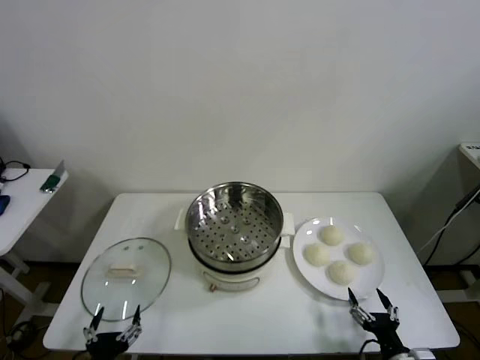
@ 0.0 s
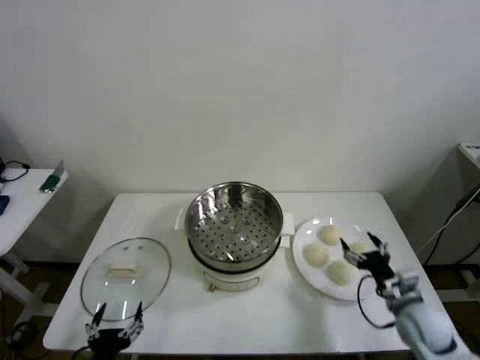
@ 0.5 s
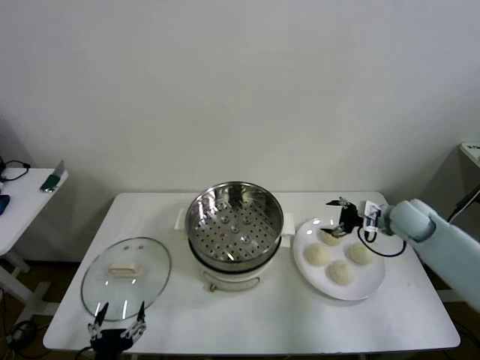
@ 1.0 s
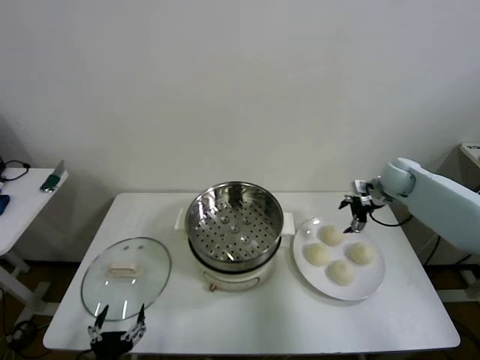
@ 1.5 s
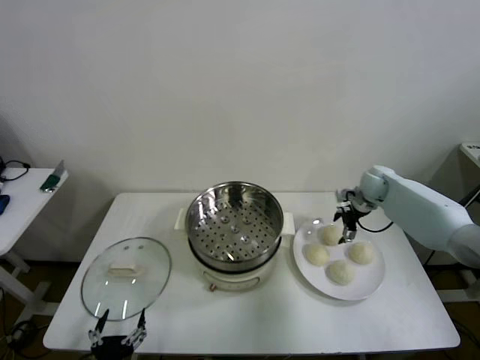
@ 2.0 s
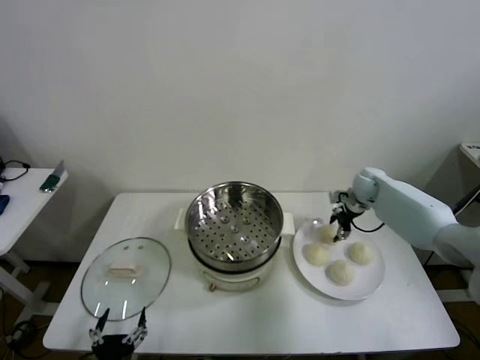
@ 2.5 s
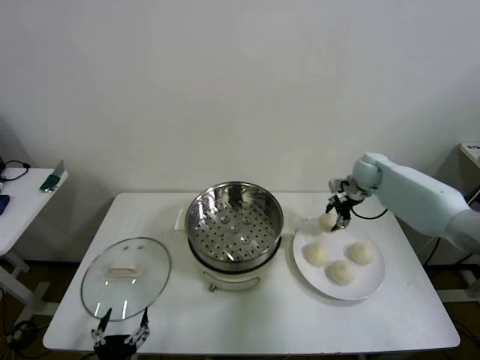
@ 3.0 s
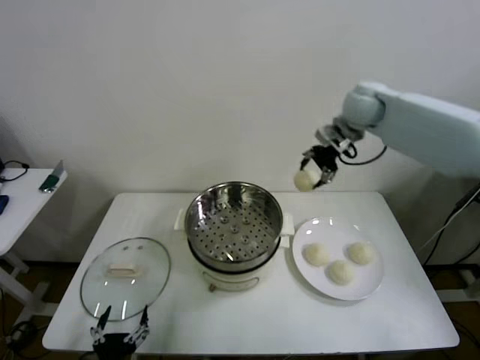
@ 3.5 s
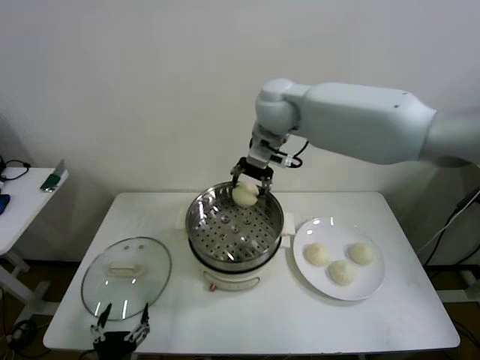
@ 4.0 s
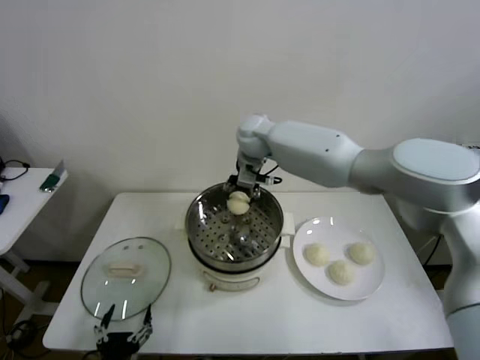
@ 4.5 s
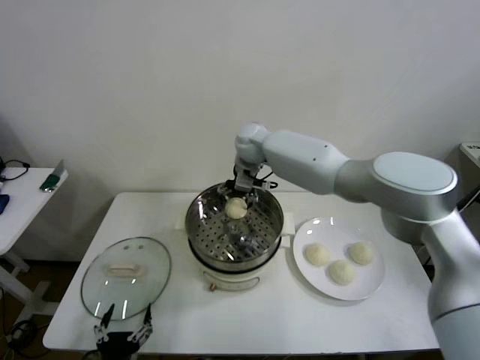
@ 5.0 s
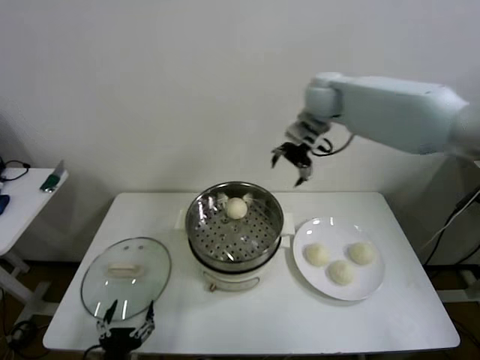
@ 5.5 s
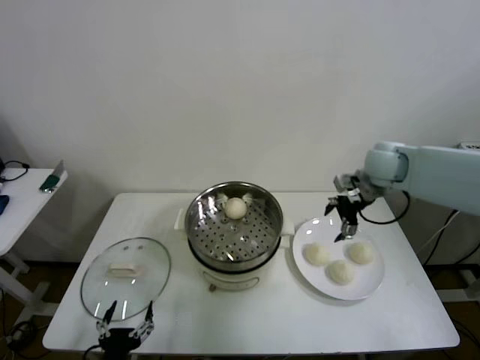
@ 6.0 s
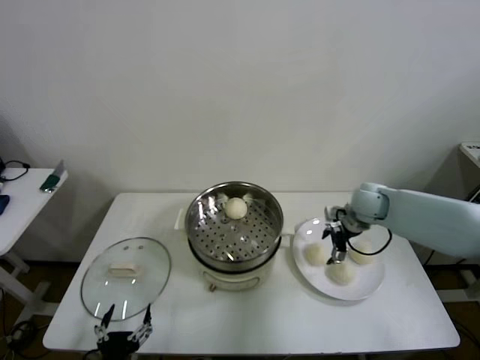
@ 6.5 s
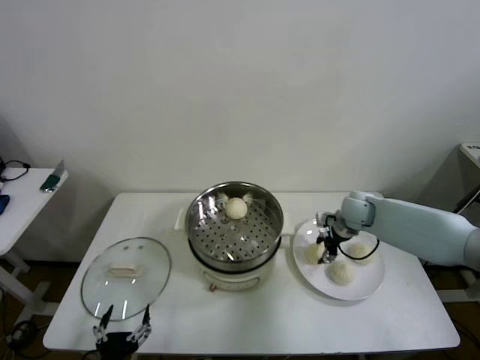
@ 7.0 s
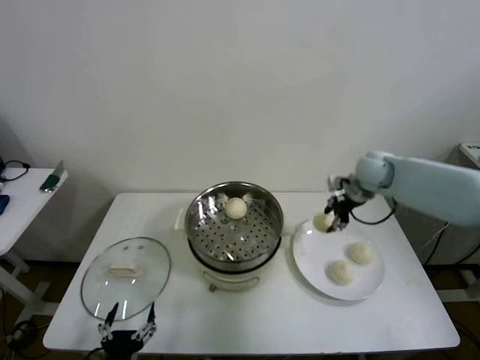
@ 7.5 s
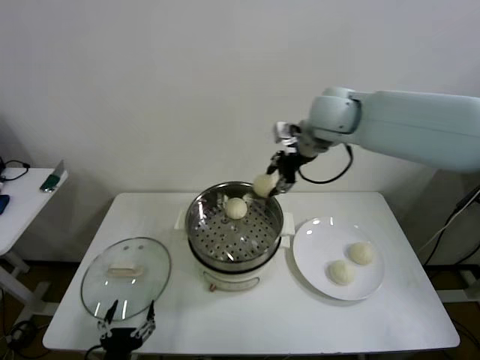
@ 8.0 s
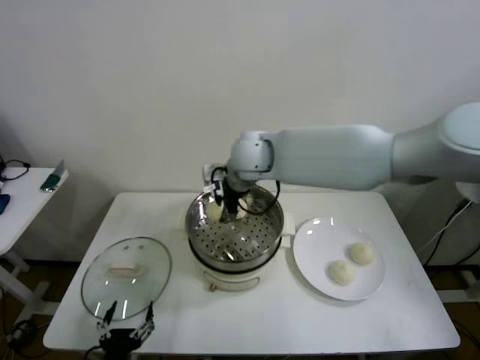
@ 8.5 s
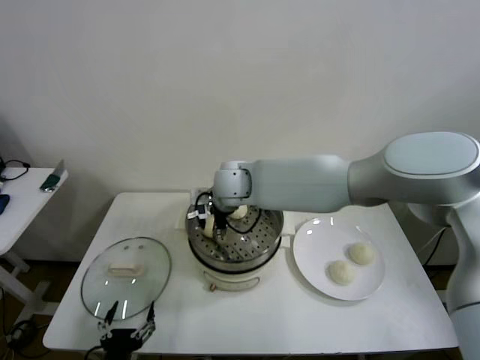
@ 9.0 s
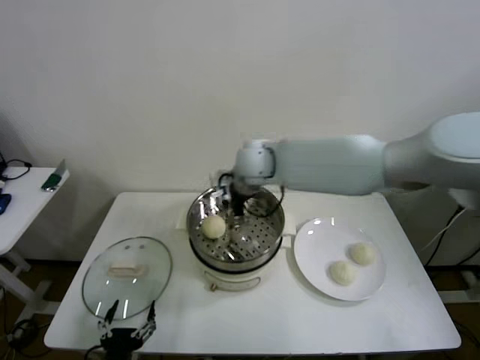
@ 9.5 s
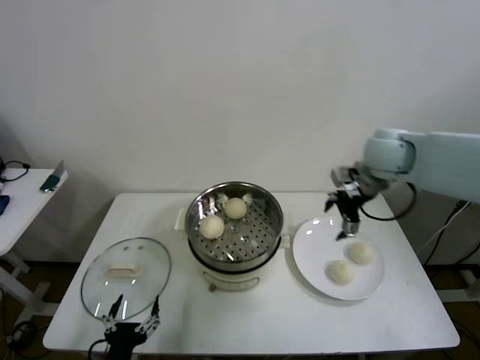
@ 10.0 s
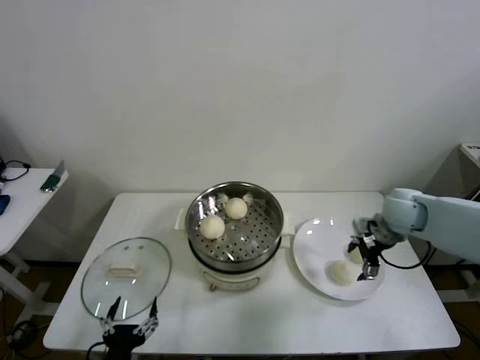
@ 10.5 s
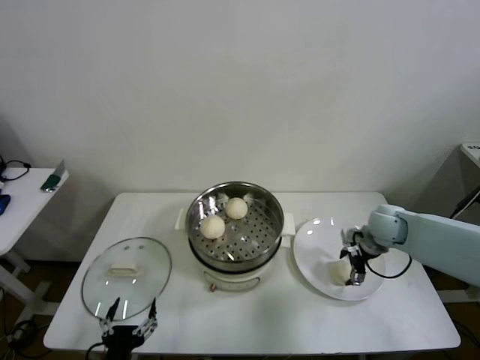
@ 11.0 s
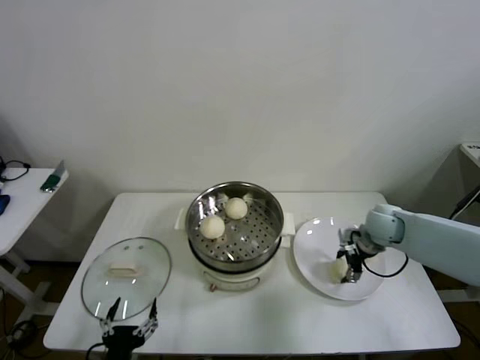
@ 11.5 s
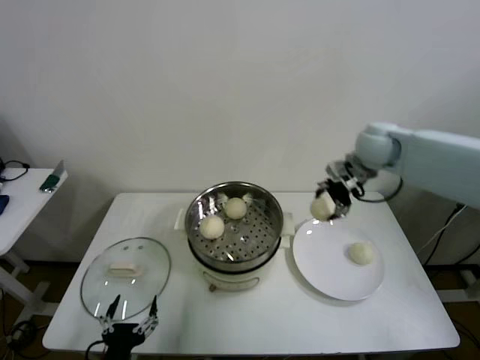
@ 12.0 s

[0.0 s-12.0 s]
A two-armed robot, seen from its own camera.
Step, 0.0 to 2.5 s: Grasp the baozi in the plate with right gripper.
Step, 3.0 to 4.5 s: Place the baozi on the steamer with right gripper.
Step, 5.0 to 6.5 s: Grasp the baozi in the plate with right gripper.
Step, 7.0 to 9.0 s: Place the baozi on the steamer with right gripper.
Step, 9.5 to 11.0 s: Grasp the baozi in the plate with right gripper.
2.0 to 4.0 s: The right gripper heads to the left and upward, covering approximately 40 cm, and closes up.
4.0 to 6.0 s: The right gripper moves to the right and downward, roughly 30 cm, and opens.
6.0 to 8.0 s: The right gripper shifts some 25 cm to the left and upward, and closes.
8.0 to 10.0 s: The right gripper is displaced to the right and downward by some 20 cm, and opens.
10.0 to 12.0 s: The right gripper moves some 20 cm downward and comes back, and closes up.

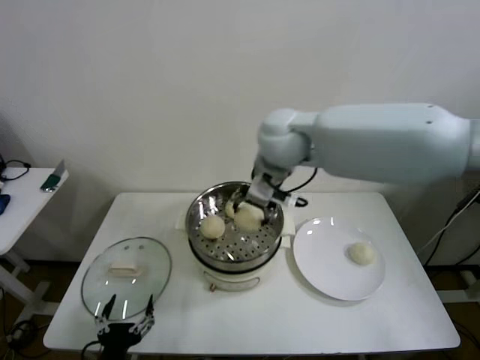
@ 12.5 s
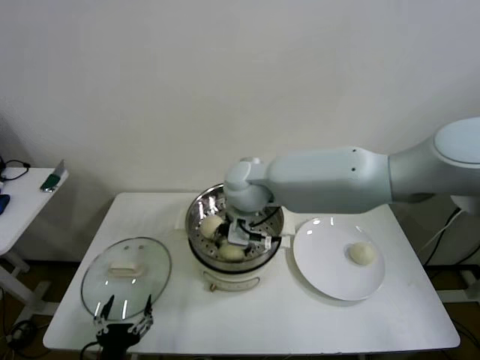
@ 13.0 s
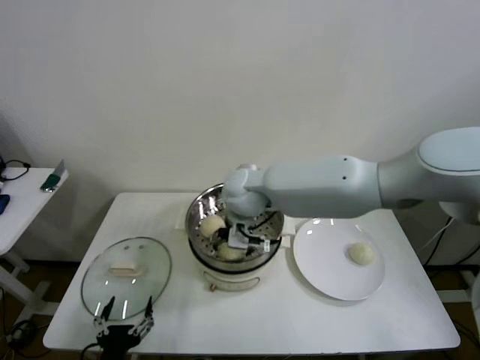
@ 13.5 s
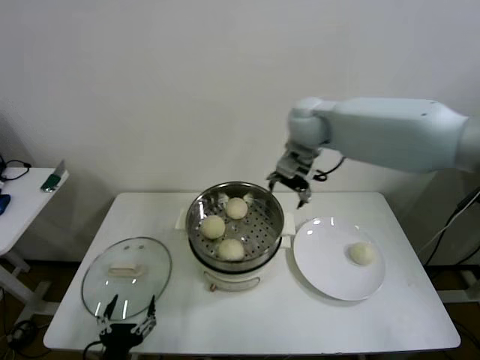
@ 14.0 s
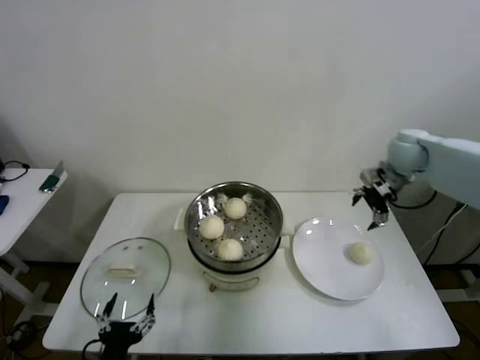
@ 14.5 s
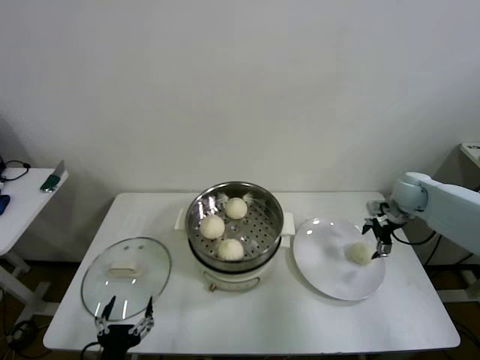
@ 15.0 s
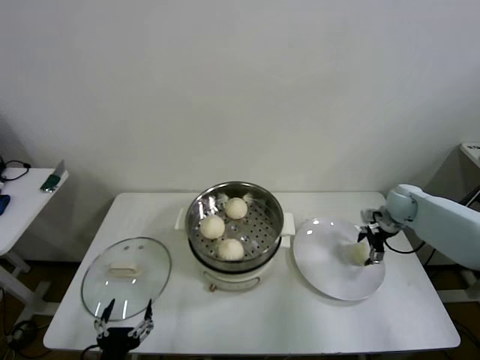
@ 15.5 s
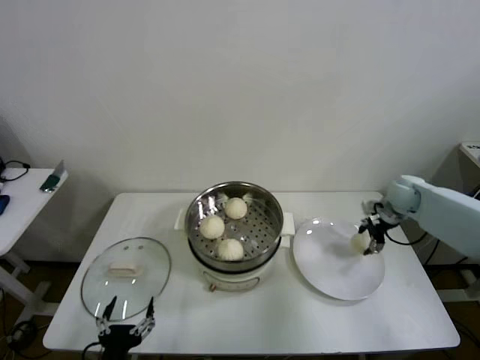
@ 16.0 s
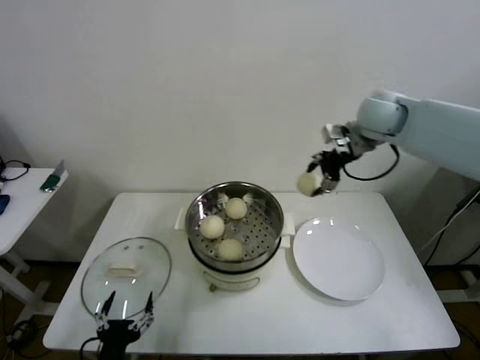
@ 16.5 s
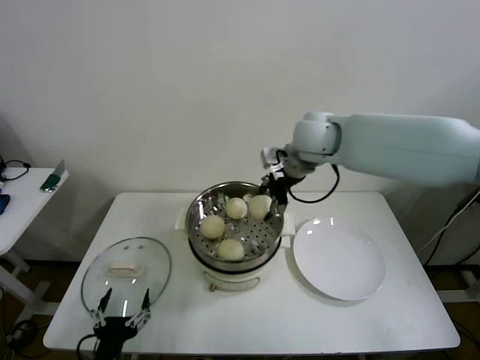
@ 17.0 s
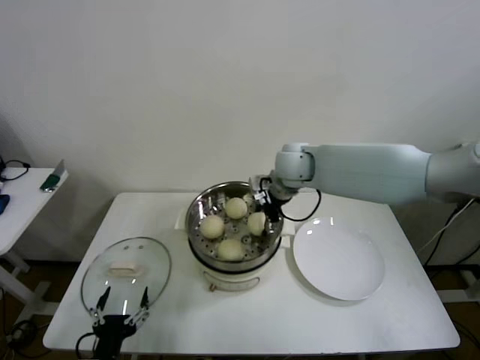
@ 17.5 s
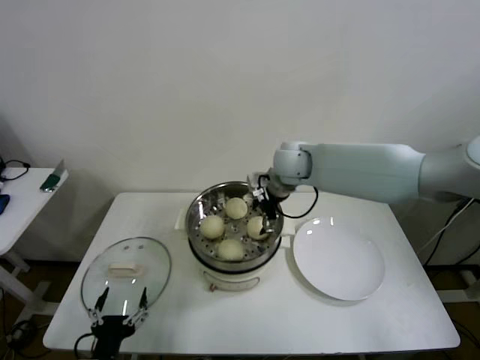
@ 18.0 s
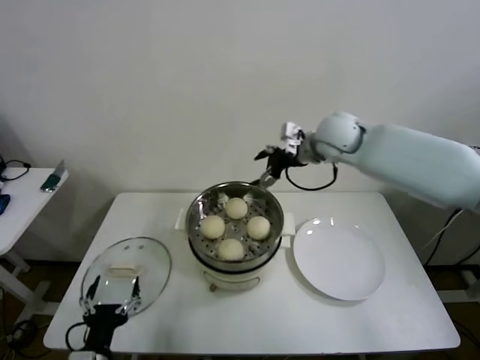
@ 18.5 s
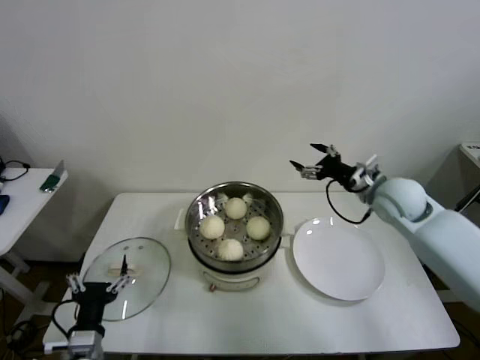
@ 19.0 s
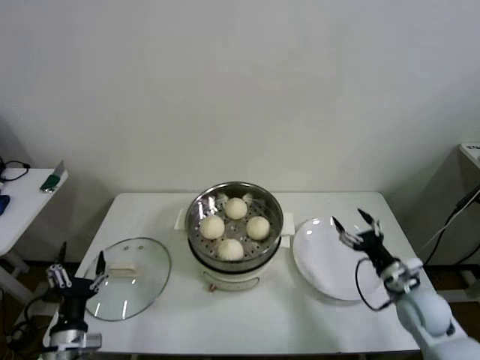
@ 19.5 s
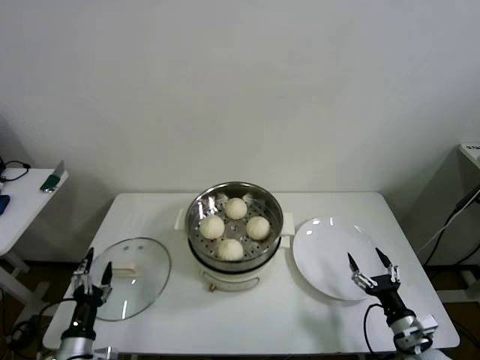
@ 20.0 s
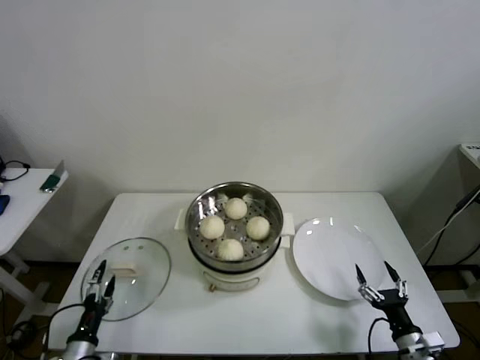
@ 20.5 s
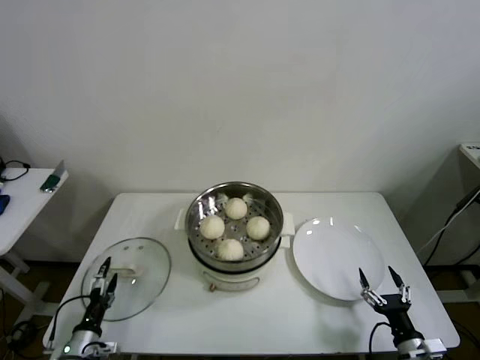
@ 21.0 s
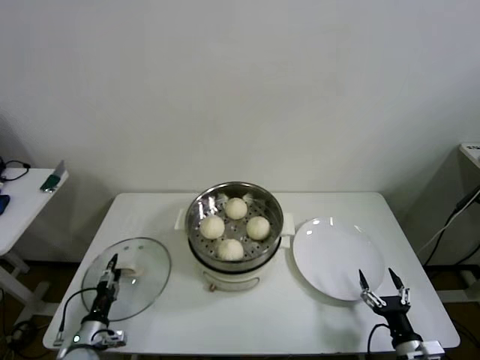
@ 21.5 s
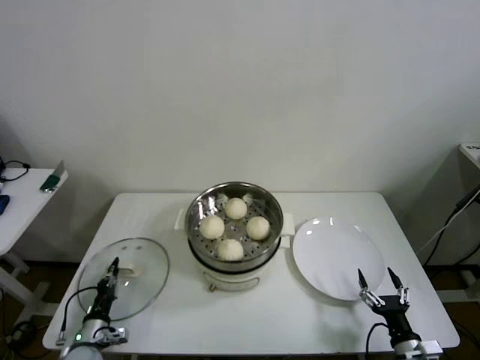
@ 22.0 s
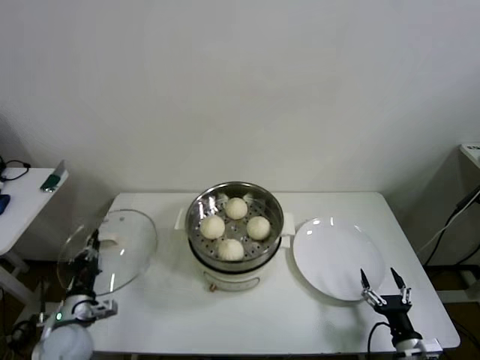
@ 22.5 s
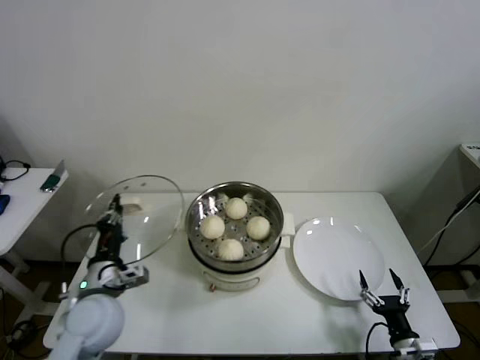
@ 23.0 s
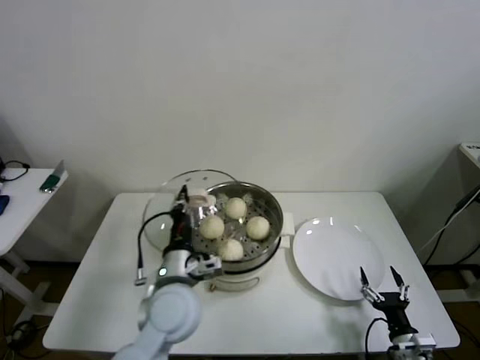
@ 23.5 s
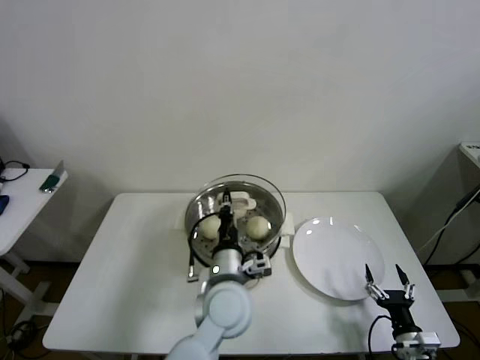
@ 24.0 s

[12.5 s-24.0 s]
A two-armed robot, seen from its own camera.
Step, 12.5 to 13.5 s: Place the baozi on the steamer with right gripper.
Step, 14.0 to 15.5 s: Grasp the baozi in the plate with right gripper.
Step, 16.0 to 17.5 s: Place the baozi on the steamer with right gripper.
Step, 18.0 to 21.5 s: Grasp the pot lid with left gripper.
12.5 to 14.5 s: The right gripper travels to the right by approximately 30 cm, and opens its fingers.
14.5 to 16.5 s: The right gripper goes about 15 cm to the left and upward, and closes up.
16.5 to 18.5 s: The right gripper goes about 10 cm to the left and downward, and opens its fingers.
18.5 to 20.0 s: The left gripper travels to the left and downward by roughly 10 cm; the right gripper is displaced downward, backward and to the right by roughly 50 cm.
20.0 to 22.0 s: The right gripper moves about 5 cm. The left gripper travels downward and forward by roughly 10 cm, and closes its fingers.
22.0 to 24.0 s: The left gripper travels to the right and upward by about 40 cm.

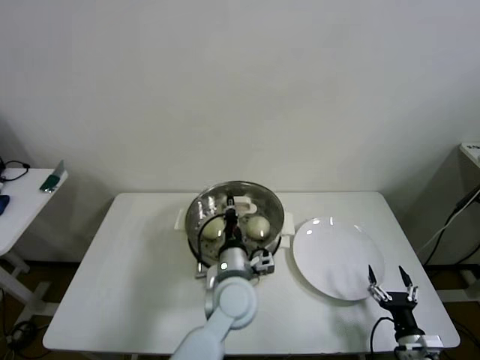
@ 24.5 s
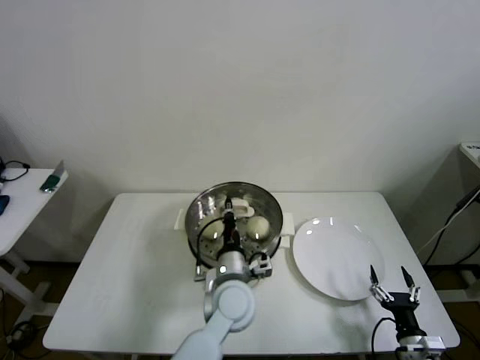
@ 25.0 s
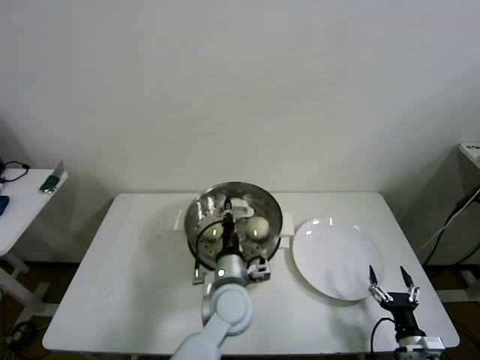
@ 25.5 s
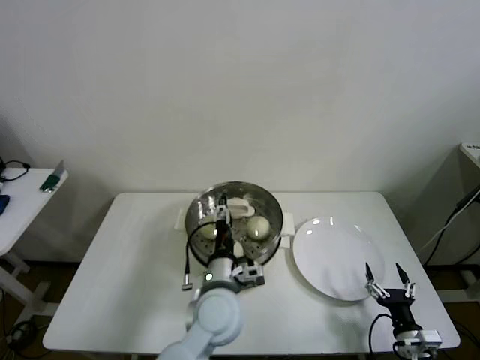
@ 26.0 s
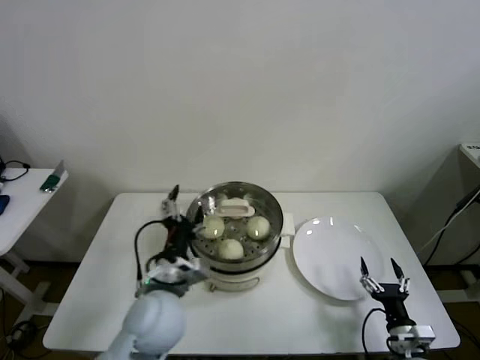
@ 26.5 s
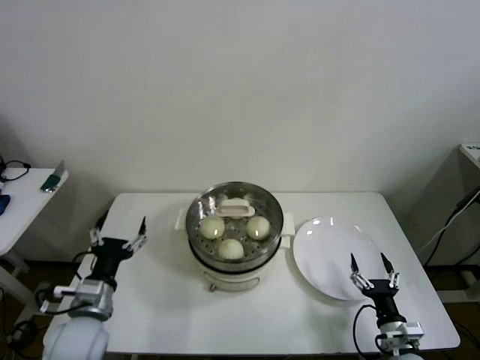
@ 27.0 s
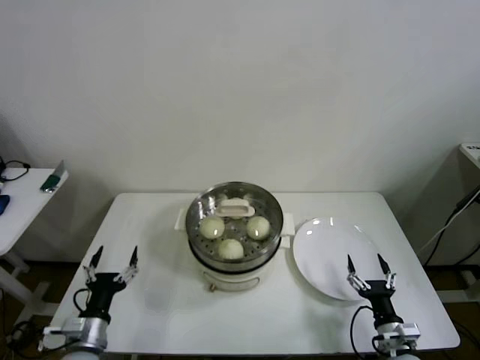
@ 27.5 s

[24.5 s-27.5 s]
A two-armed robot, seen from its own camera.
24.5 to 26.0 s: The left gripper opens its fingers.
26.0 to 27.5 s: The left gripper travels to the left by roughly 30 cm, and opens up.
